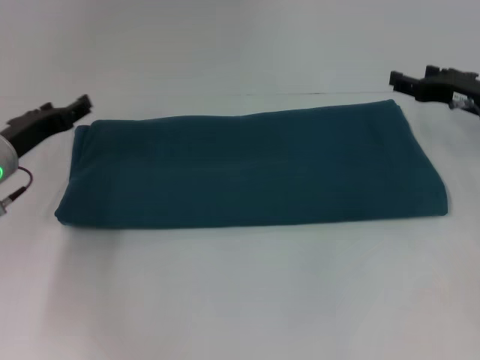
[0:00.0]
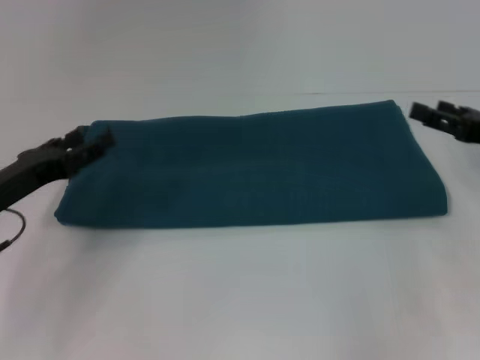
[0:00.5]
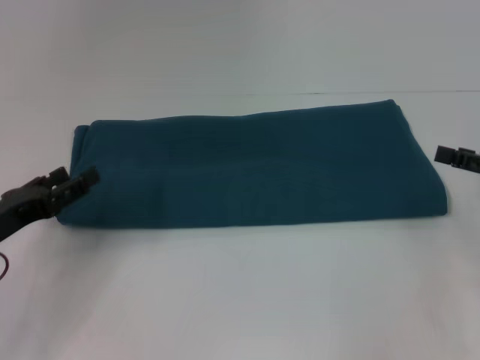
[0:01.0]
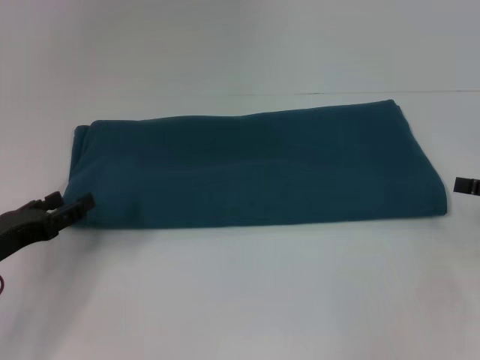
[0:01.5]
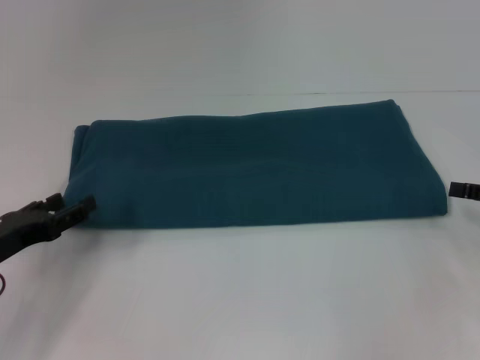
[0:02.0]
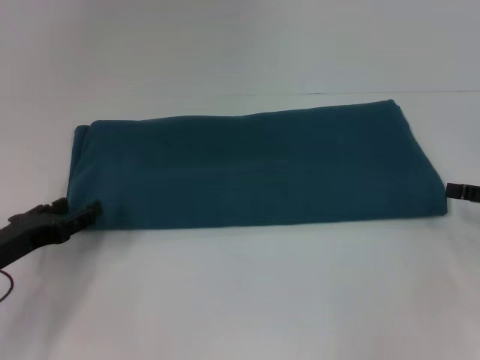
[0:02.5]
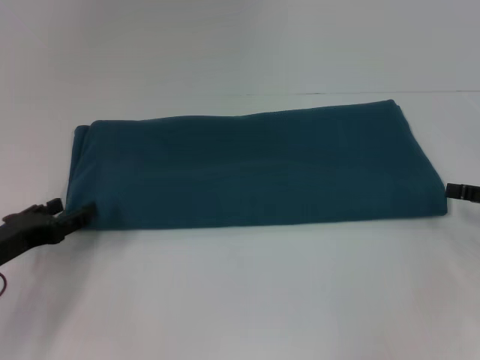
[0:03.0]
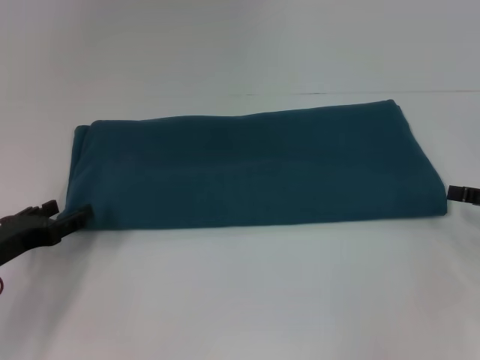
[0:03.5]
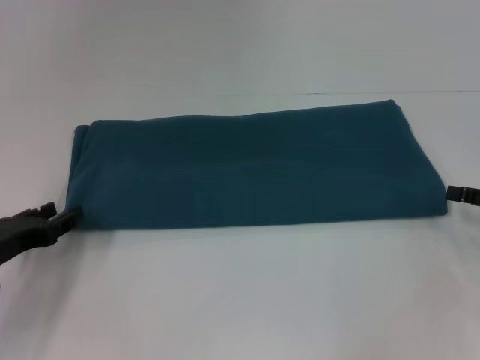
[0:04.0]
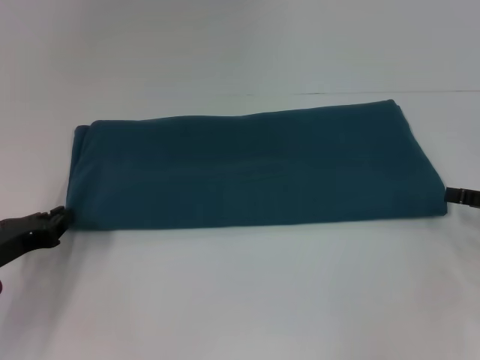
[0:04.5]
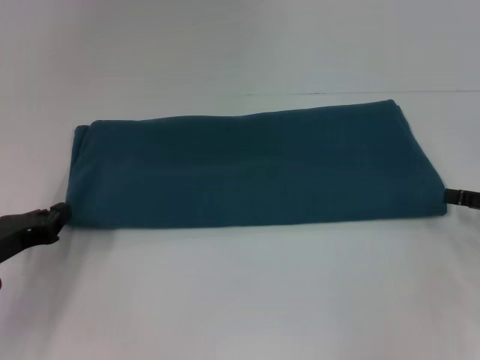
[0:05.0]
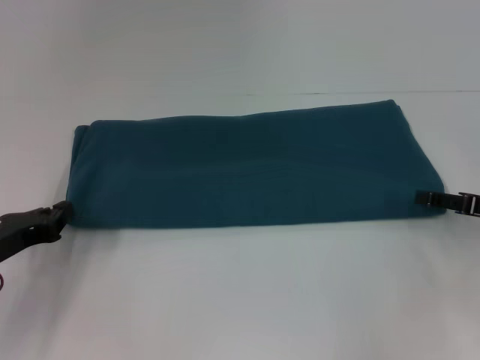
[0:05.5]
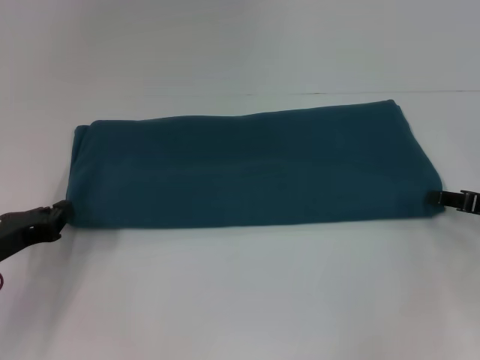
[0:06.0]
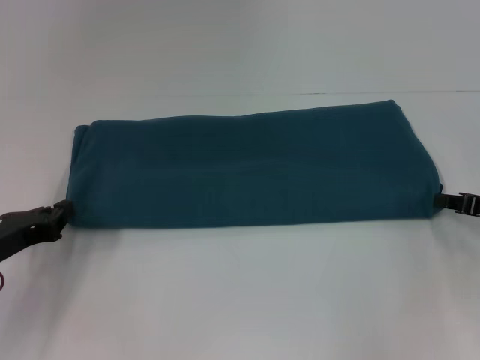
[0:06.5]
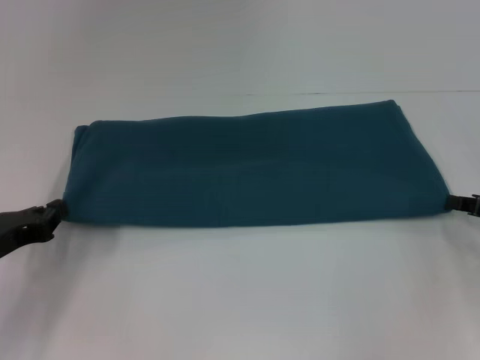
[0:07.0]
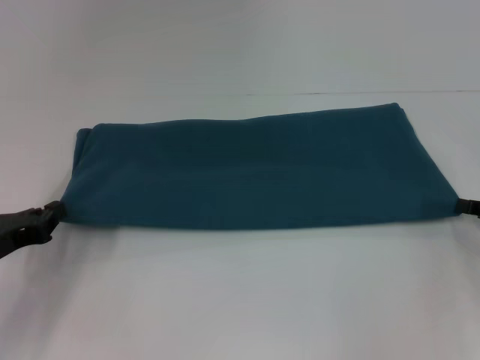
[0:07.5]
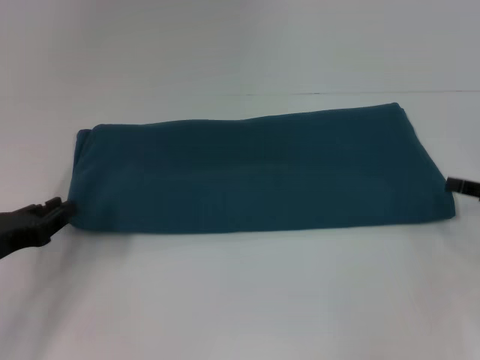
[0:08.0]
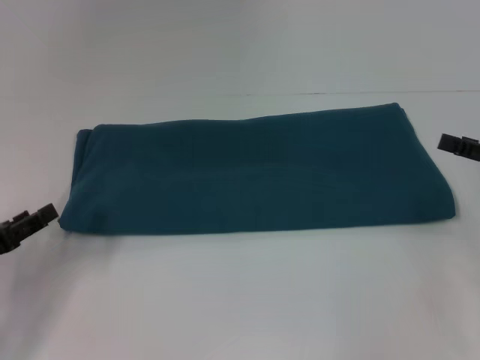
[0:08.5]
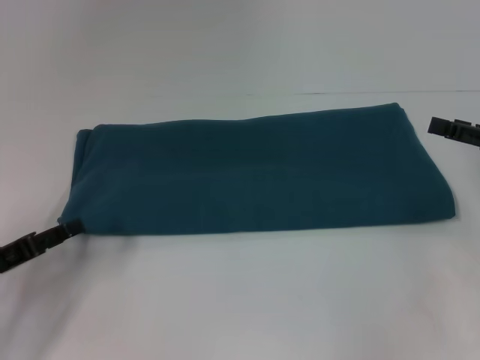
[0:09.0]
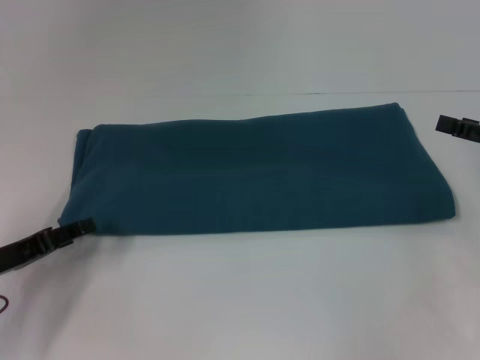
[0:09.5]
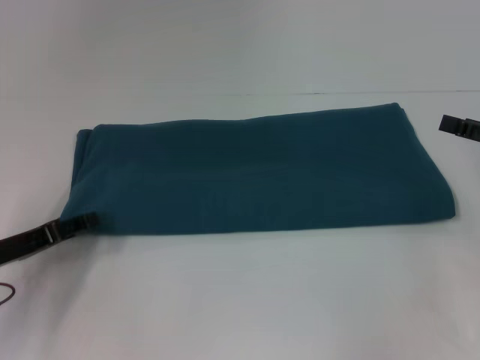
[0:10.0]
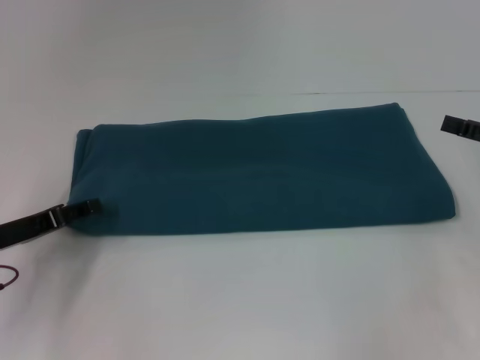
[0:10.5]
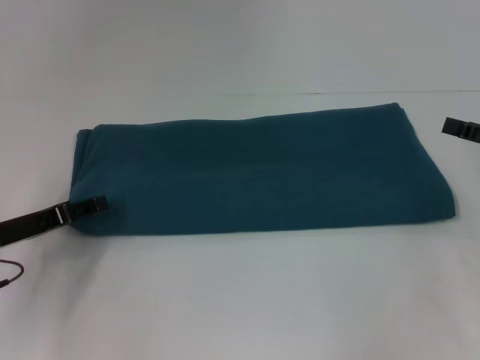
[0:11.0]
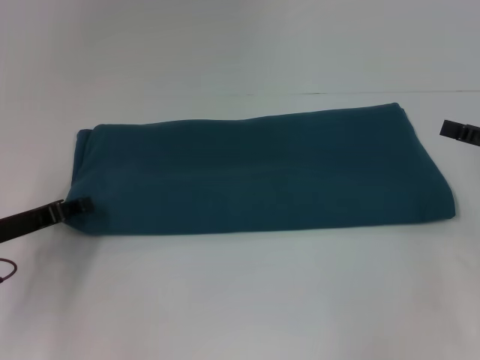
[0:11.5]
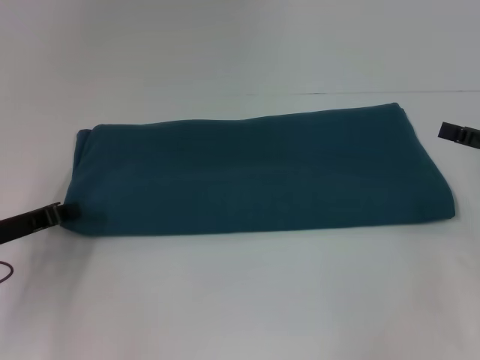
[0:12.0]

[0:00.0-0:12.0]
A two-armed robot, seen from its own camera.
0:00.0 to 0:02.0: The left gripper goes about 10 cm backward, while the right gripper travels backward and to the right by about 15 cm.
0:02.0 to 0:04.0: The grippers make only small movements.
0:04.0 to 0:06.0: The left gripper closes.
0:06.0 to 0:08.0: The right gripper closes up.
0:08.0 to 0:10.0: The right gripper opens up. Meanwhile the left gripper opens up.
0:10.0 to 0:12.0: The left gripper closes up.

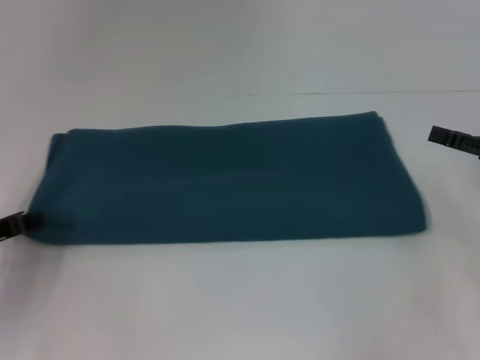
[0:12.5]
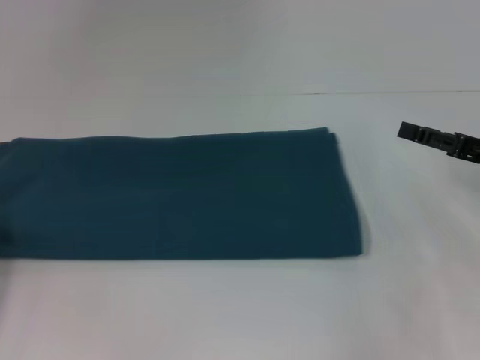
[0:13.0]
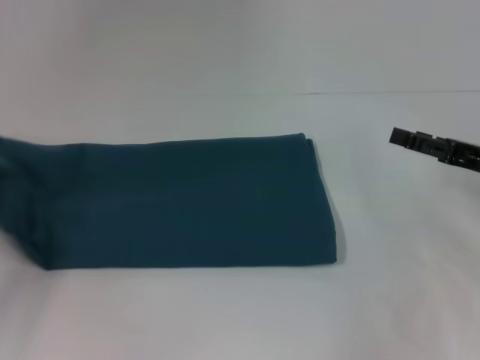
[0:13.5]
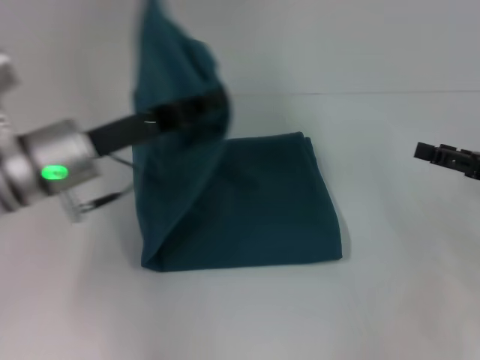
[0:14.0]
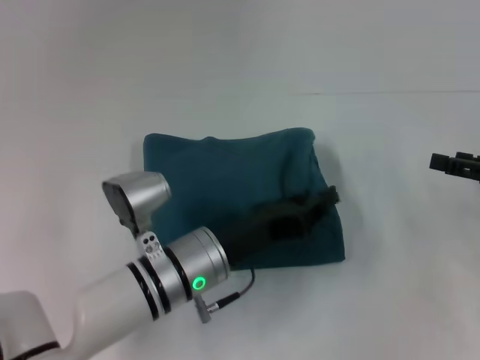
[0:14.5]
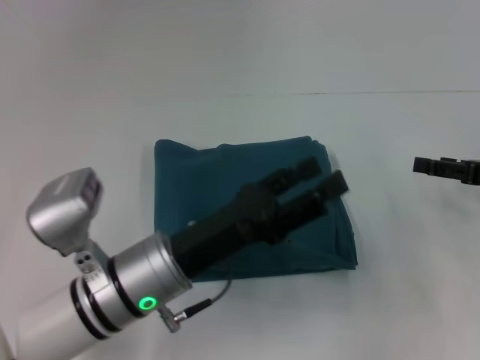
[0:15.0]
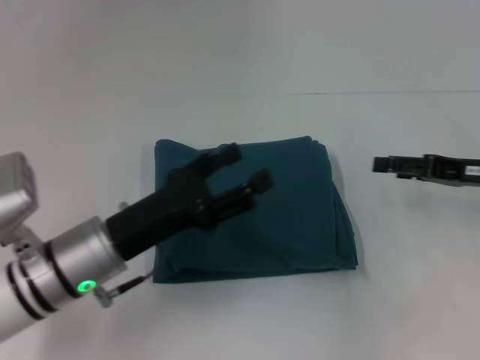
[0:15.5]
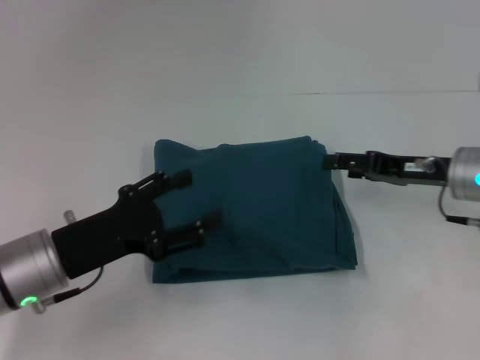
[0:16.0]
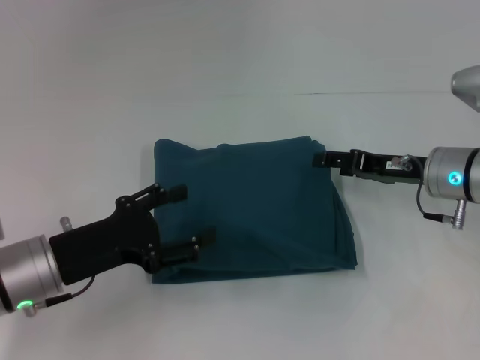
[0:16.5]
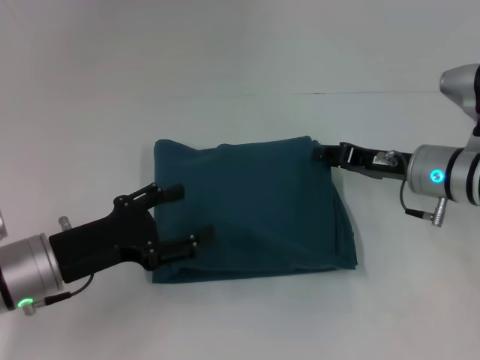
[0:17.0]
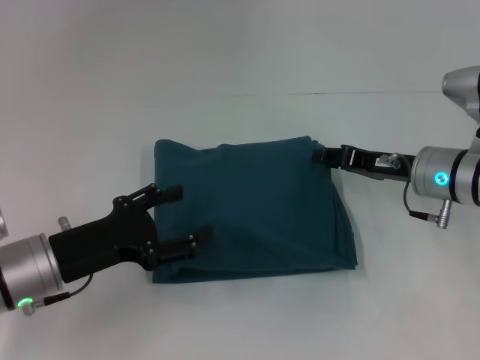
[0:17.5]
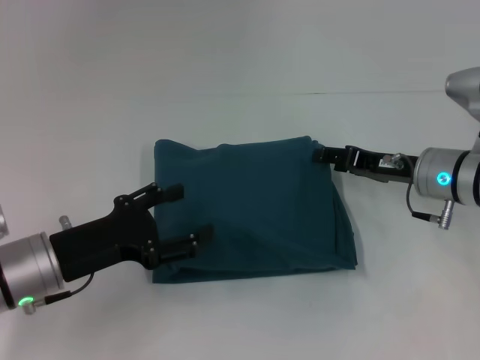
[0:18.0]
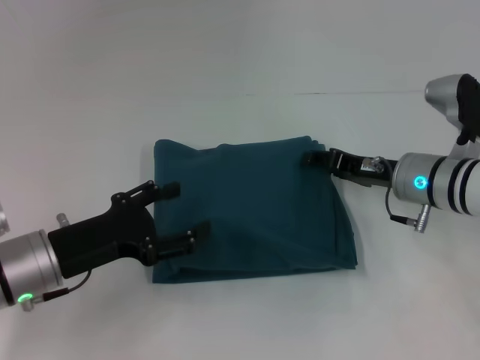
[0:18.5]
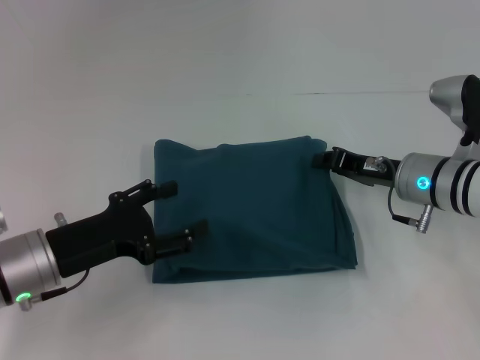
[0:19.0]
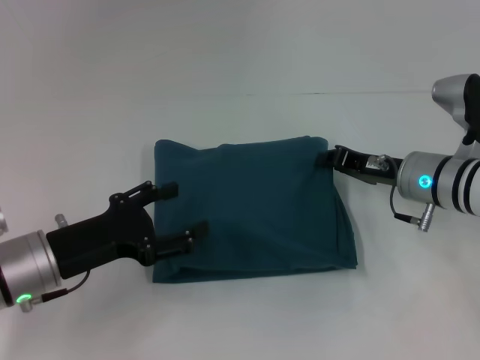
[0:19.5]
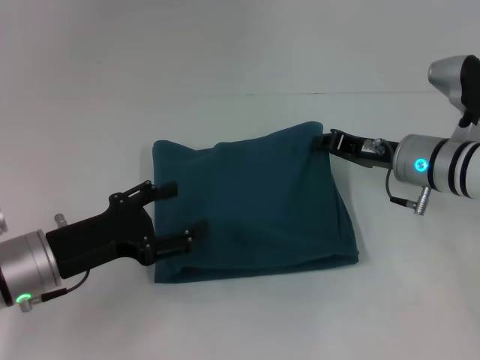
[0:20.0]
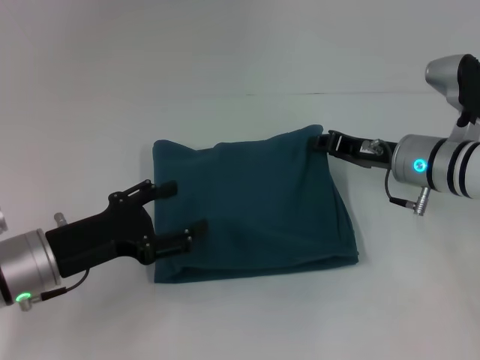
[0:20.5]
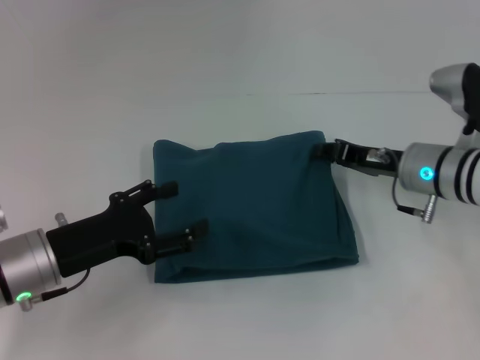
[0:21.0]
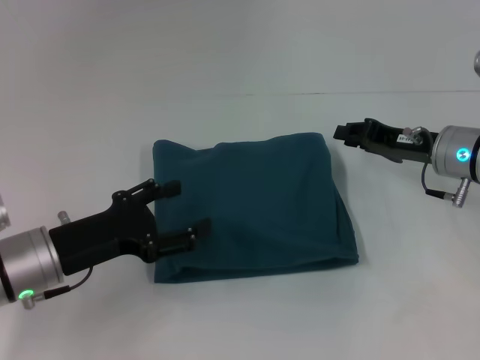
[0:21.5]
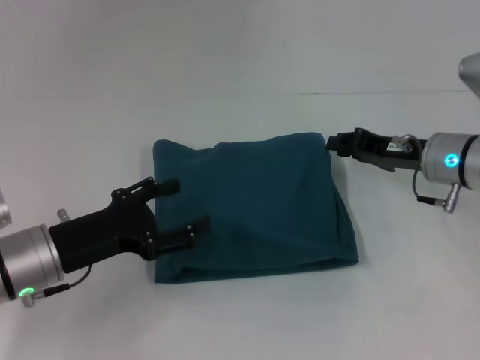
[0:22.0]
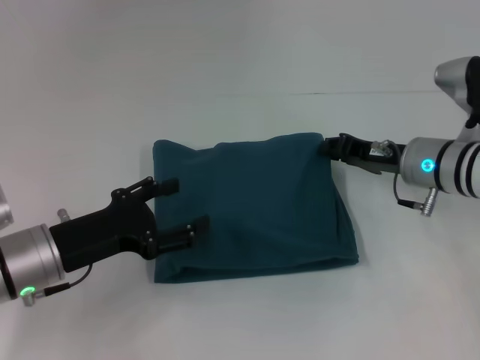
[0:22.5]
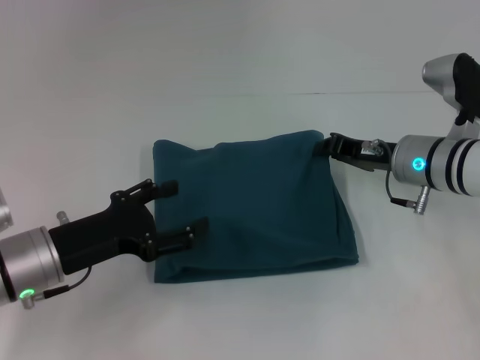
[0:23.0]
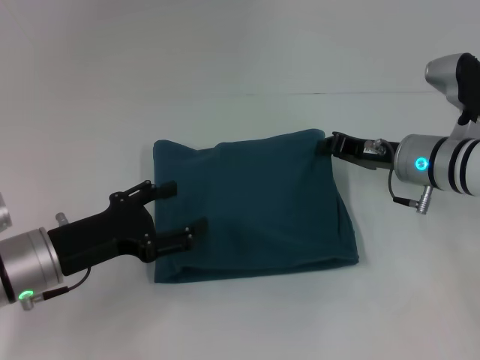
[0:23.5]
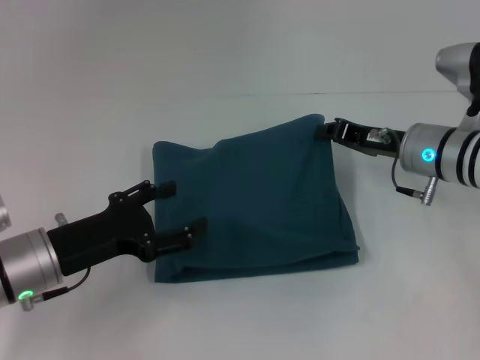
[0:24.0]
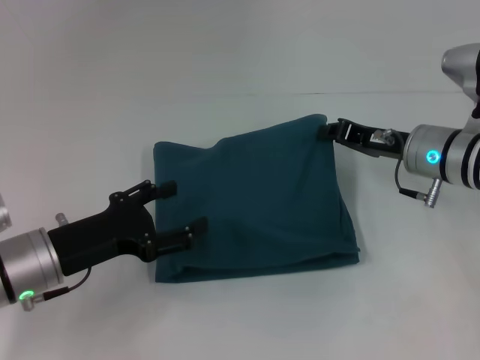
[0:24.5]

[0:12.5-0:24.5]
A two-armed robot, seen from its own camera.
Step, 0:12.5 to 0:14.5: Fold the clothes to the left.
0:12.5 to 0:14.5: The left gripper heads to the right, covering about 25 cm.
0:14.5 to 0:16.5: The left gripper is displaced to the left by approximately 15 cm, and opens its fingers, while the right gripper is displaced to the left and forward by approximately 15 cm.
0:16.5 to 0:18.5: The grippers make only small movements.
0:18.5 to 0:20.5: The right gripper closes its fingers.
0:20.5 to 0:24.5: There are only small adjustments of the grippers.

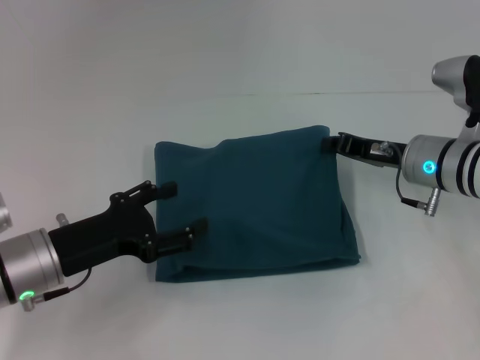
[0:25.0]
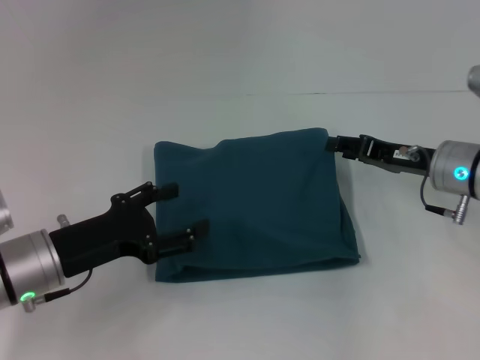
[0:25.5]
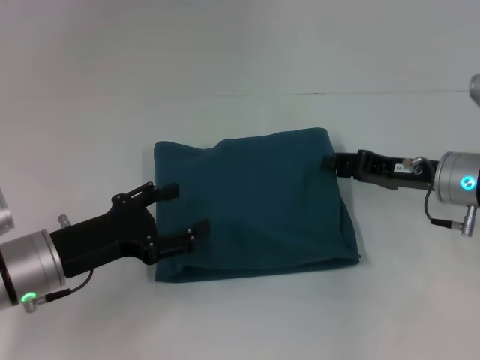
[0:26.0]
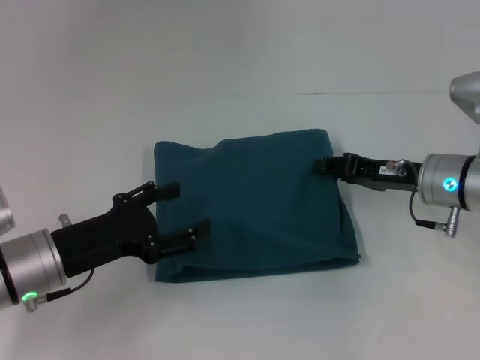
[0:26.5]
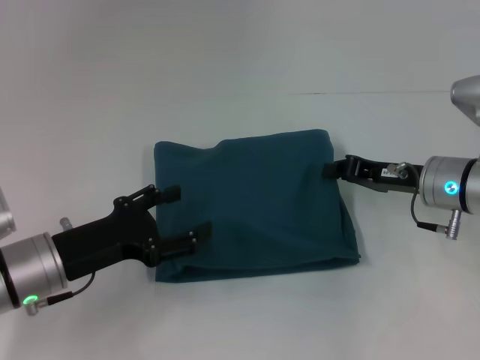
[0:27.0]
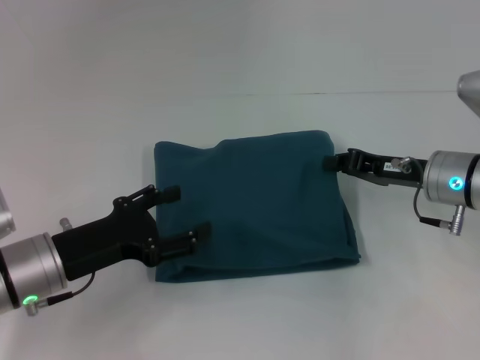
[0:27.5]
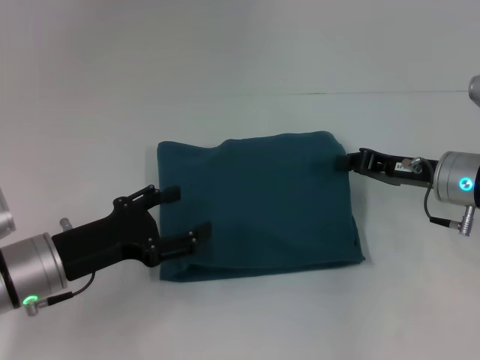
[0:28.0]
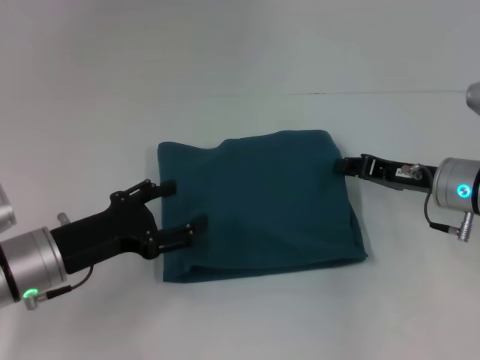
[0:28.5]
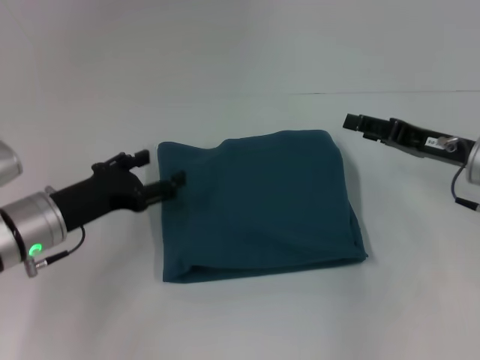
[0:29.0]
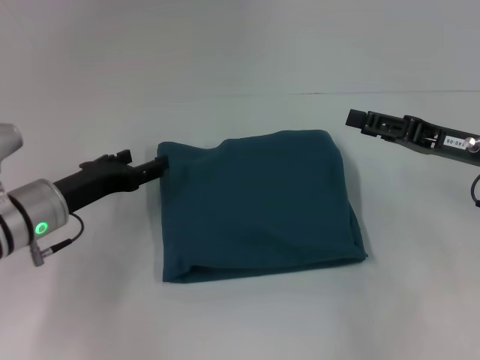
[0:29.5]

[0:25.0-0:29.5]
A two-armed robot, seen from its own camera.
0:25.0 to 0:27.0: The right gripper opens and closes again.
0:27.0 to 0:29.5: The left gripper shifts roughly 5 cm forward. The right gripper changes place by roughly 5 cm, and opens up.
